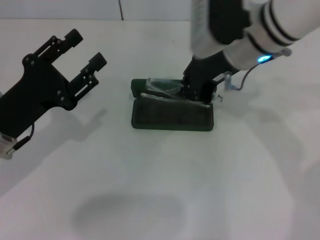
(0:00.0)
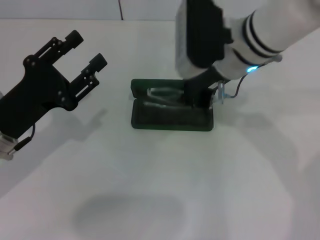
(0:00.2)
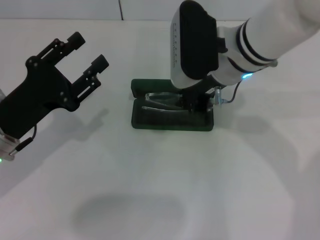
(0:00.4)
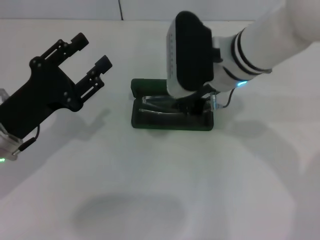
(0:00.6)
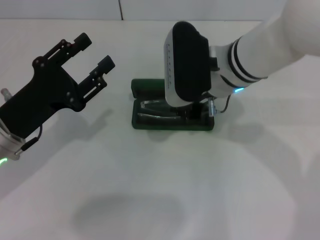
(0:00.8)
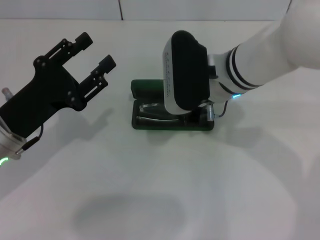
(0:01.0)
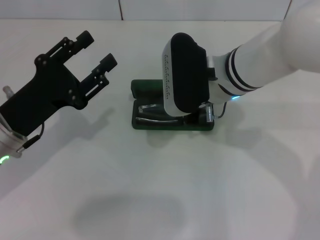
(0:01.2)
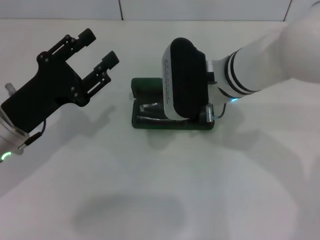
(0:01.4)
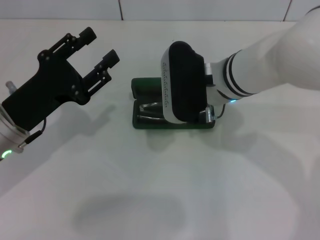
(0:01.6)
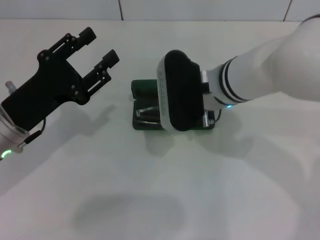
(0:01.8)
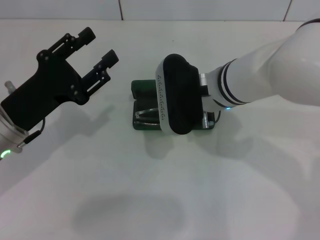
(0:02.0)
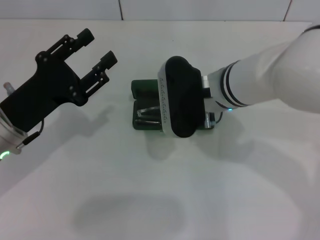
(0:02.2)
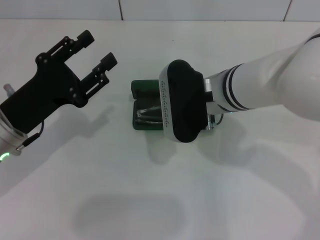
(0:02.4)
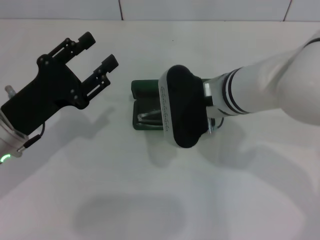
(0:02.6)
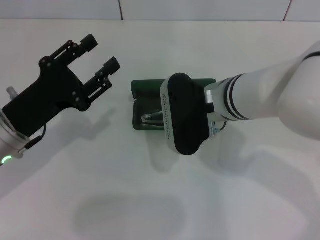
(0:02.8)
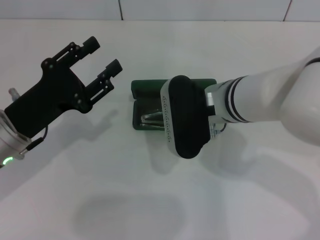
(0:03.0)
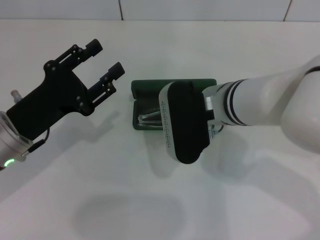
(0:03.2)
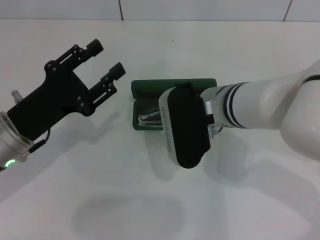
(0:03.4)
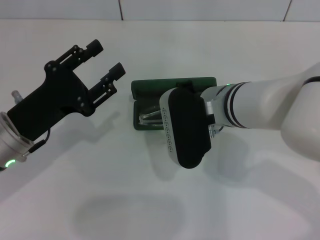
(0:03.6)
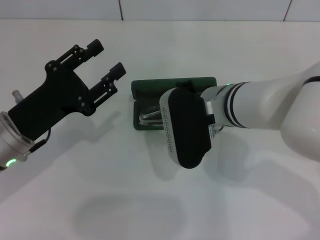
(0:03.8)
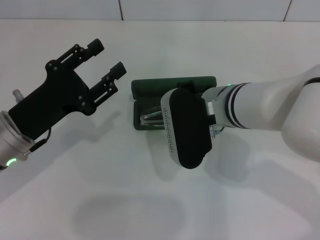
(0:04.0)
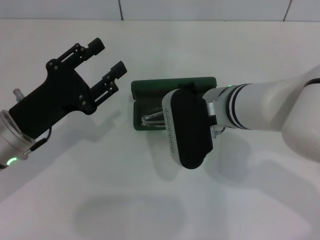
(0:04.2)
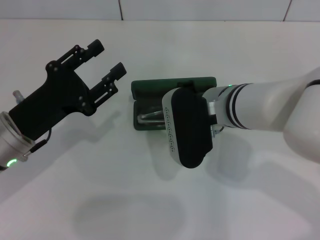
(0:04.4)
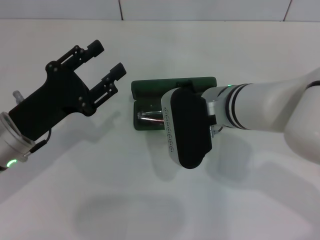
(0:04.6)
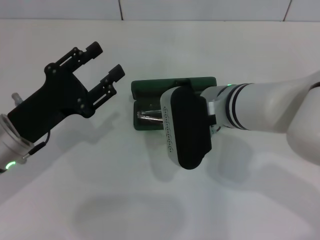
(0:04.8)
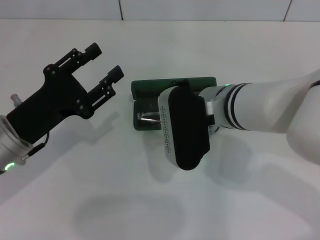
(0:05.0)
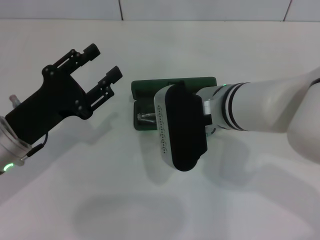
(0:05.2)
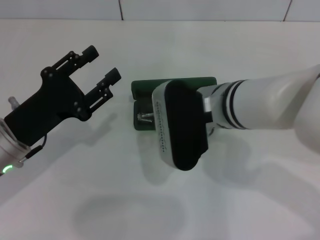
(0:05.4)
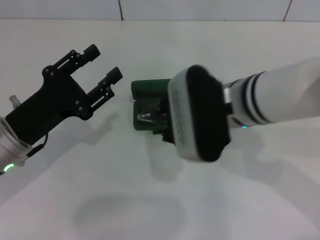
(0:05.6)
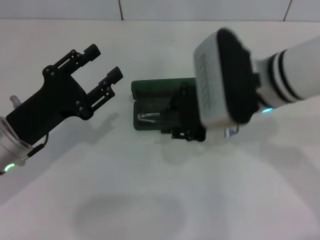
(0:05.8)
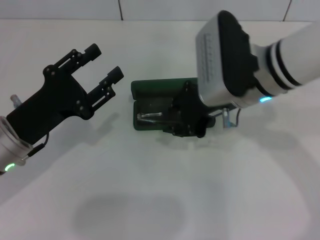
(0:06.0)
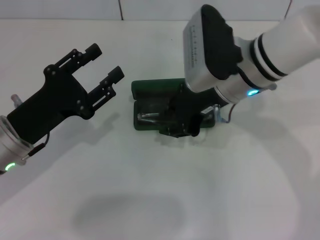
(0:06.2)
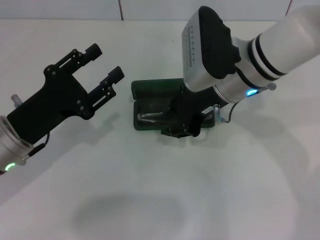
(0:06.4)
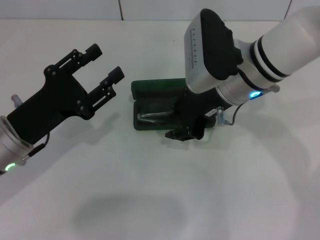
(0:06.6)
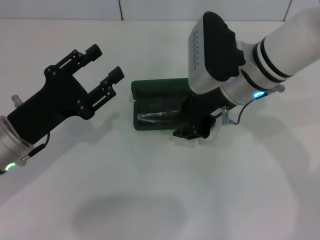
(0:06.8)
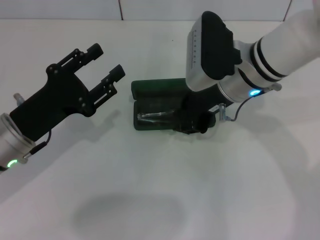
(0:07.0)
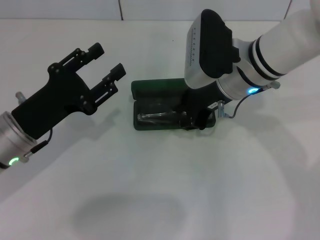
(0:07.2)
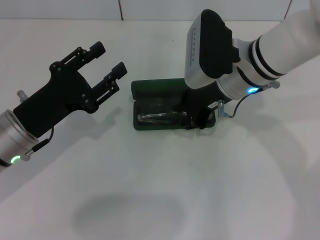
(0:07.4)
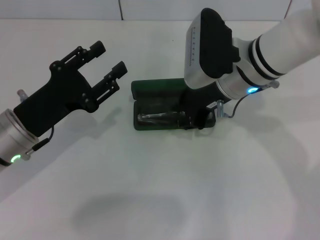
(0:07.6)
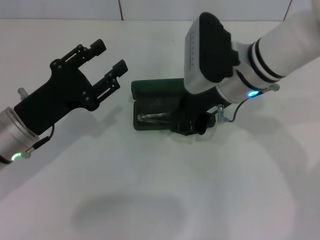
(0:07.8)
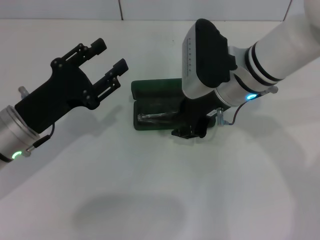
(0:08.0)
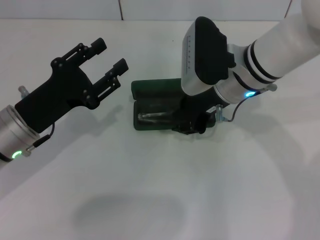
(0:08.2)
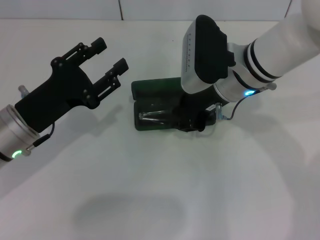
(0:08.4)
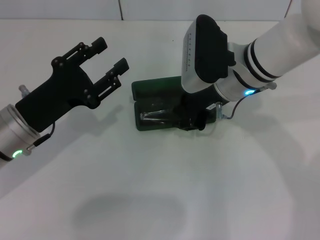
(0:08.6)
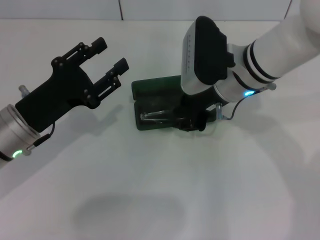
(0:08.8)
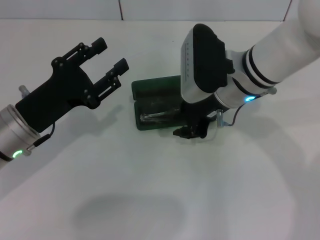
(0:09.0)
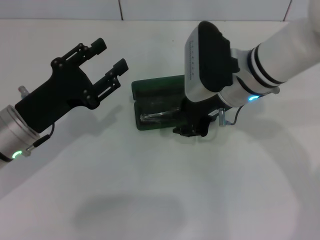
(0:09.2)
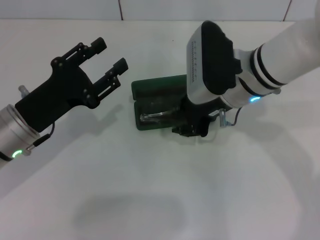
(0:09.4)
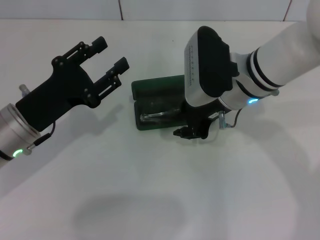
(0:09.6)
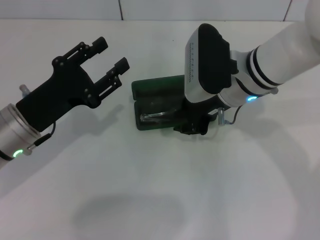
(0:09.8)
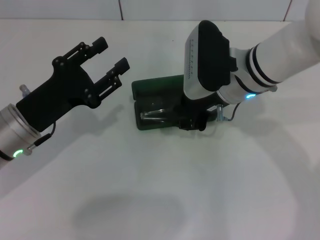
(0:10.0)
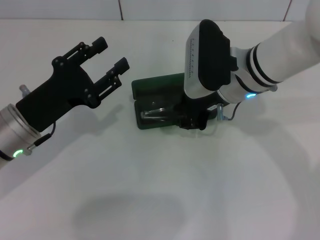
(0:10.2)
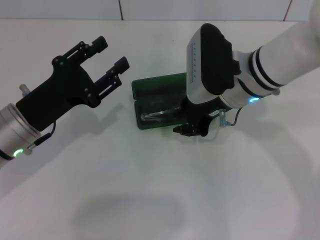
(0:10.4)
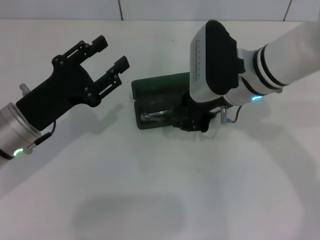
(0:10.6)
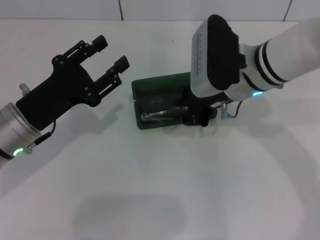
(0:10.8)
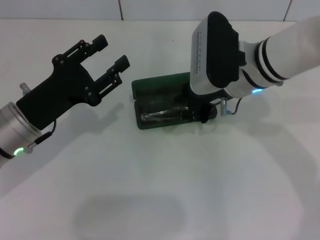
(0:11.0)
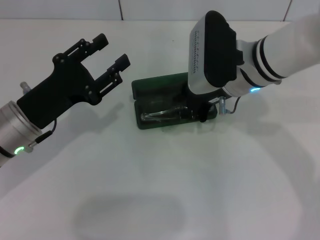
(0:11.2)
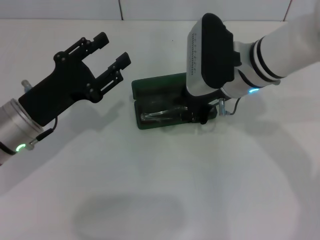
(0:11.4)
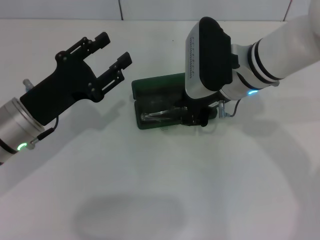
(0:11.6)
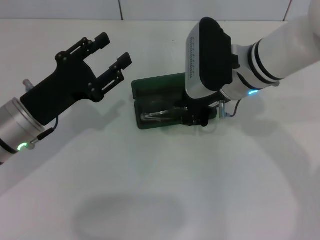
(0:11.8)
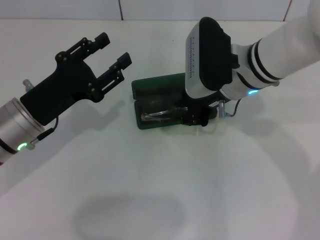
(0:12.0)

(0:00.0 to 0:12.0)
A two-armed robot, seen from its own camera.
Step, 0:00.0 - 0:05.2: Put the glasses into the case with your right hand.
0:00.0 - 0:01.6: The right gripper moves downward, roughly 5 cm.
0:01.6 - 0:04.4: The grippers make only small movements.
0:04.4 - 0:06.0: The right gripper travels upward by about 5 cm.
0:06.0 - 0:07.6: There are only small adjustments of the grippers.
0:07.6 - 0:10.4: Both grippers stay put.
0:10.4 - 0:12.0: The grippers stay close to where they were, moving slightly.

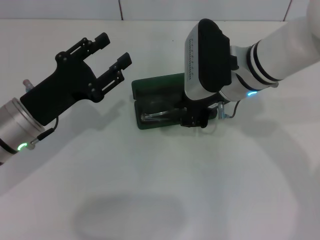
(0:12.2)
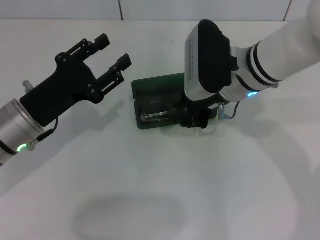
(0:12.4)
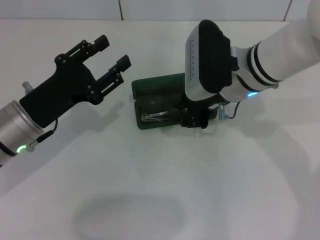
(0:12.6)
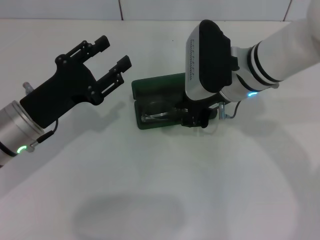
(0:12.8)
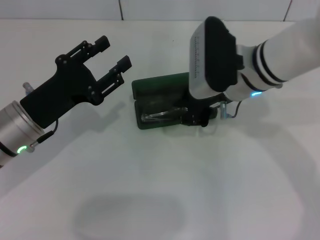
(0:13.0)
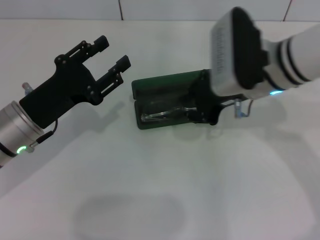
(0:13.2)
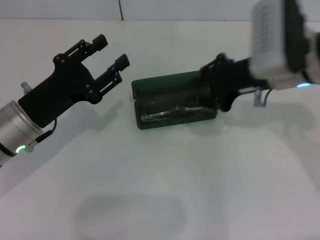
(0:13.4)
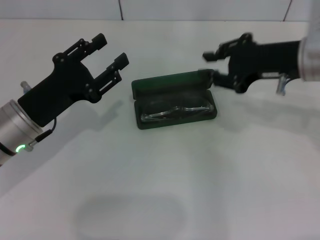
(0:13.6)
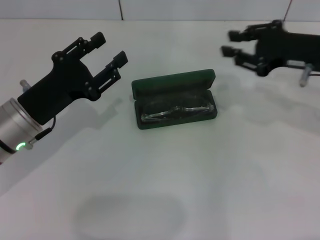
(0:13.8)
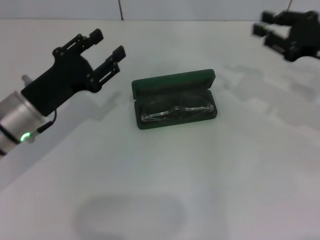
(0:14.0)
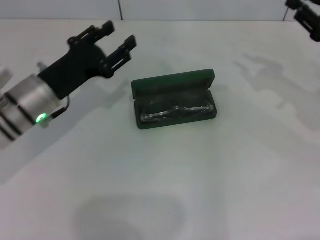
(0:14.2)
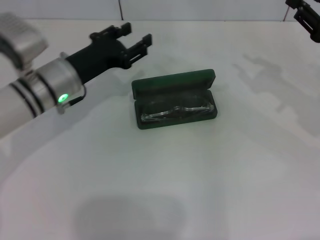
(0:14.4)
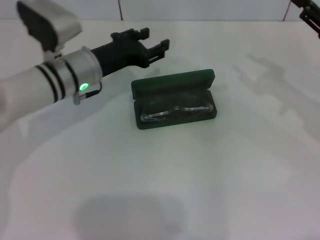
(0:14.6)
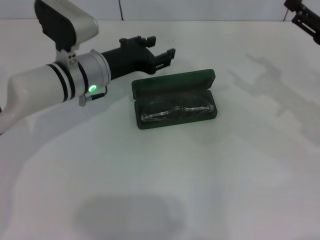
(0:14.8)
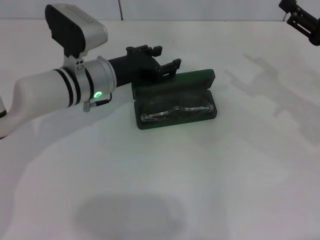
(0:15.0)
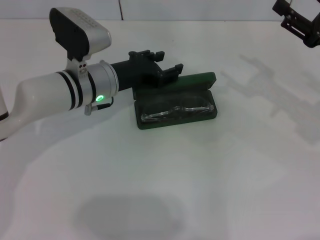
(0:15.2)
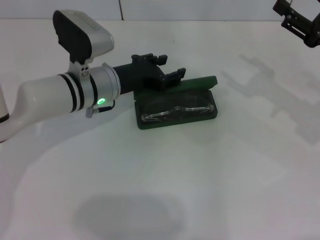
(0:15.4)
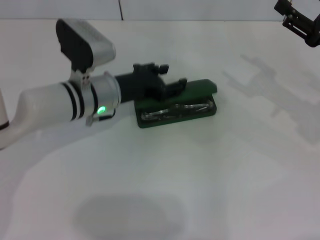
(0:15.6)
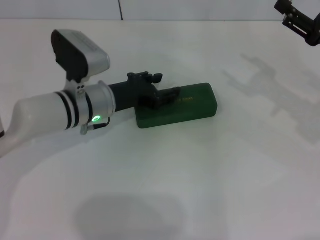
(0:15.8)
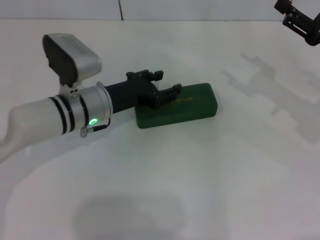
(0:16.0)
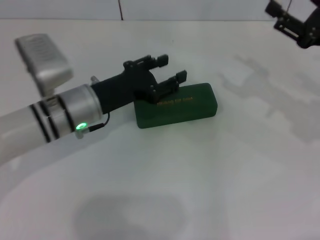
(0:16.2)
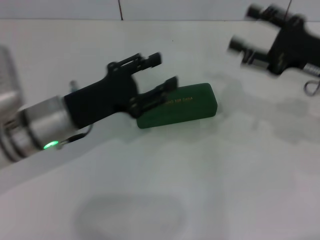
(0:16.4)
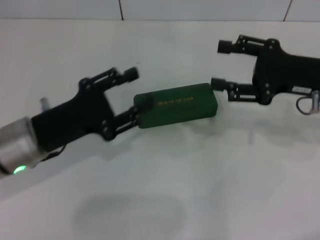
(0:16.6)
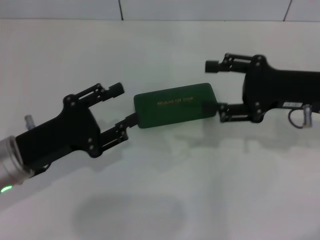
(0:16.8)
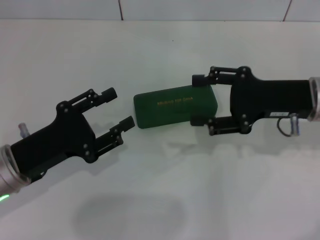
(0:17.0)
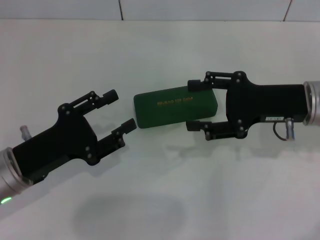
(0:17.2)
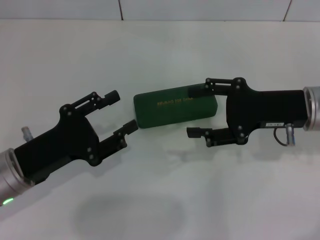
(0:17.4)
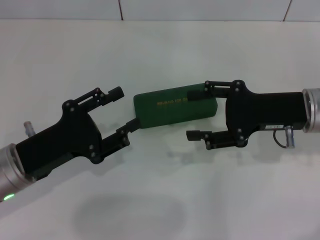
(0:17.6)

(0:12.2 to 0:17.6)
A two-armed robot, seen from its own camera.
Step, 0:12.2 - 0:15.8: Close the glasses case with your left hand.
0:12.2 - 0:13.6: The right gripper is displaced to the right by approximately 10 cm.
0:13.6 - 0:15.0: The right gripper travels to the right and downward by about 10 cm, and opens up, while the left gripper heads forward and to the right, covering approximately 15 cm.
0:15.0 - 0:16.2: The left gripper goes some 5 cm backward.
0:16.2 - 0:17.6: The left gripper shifts about 10 cm backward and to the left; the right gripper travels to the left by approximately 5 cm.

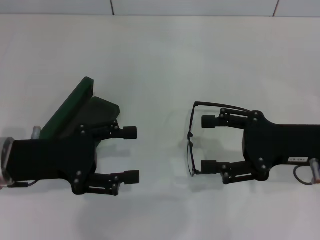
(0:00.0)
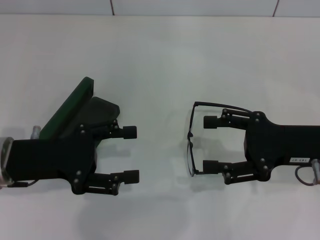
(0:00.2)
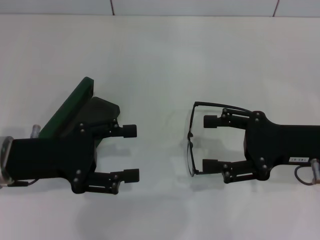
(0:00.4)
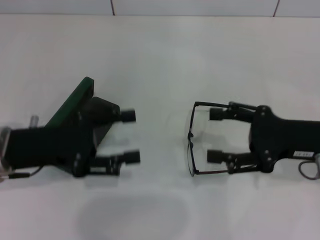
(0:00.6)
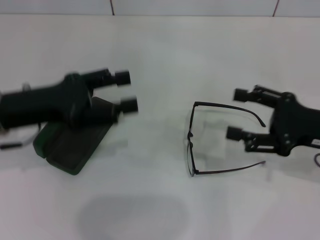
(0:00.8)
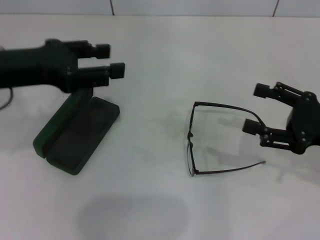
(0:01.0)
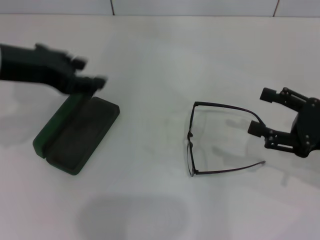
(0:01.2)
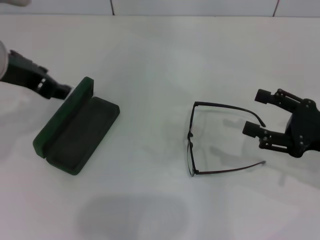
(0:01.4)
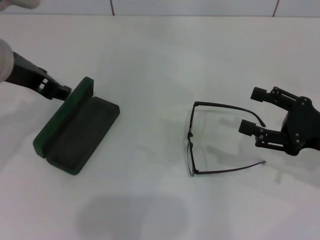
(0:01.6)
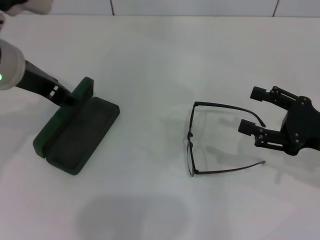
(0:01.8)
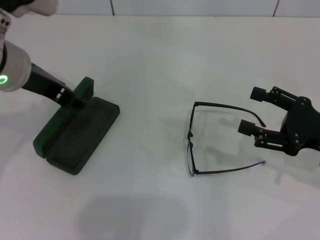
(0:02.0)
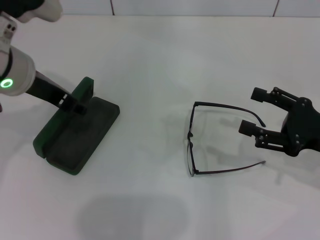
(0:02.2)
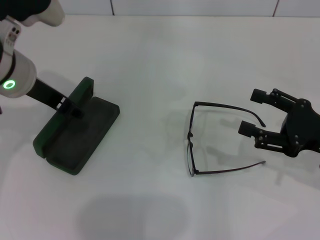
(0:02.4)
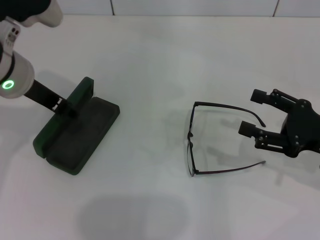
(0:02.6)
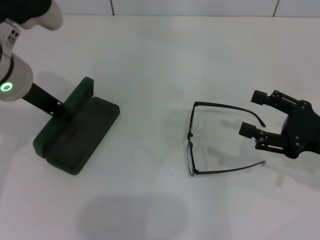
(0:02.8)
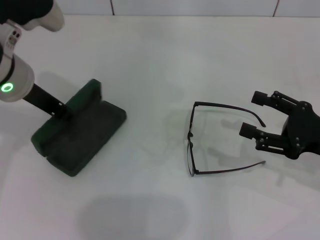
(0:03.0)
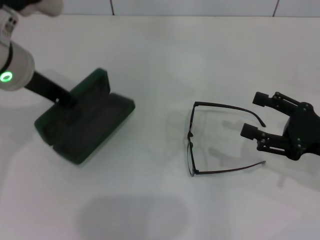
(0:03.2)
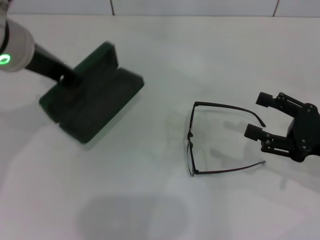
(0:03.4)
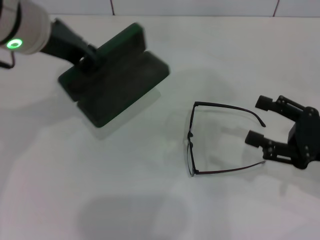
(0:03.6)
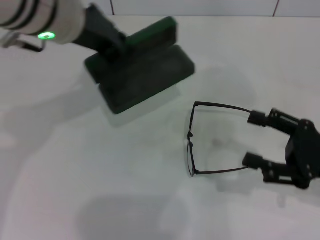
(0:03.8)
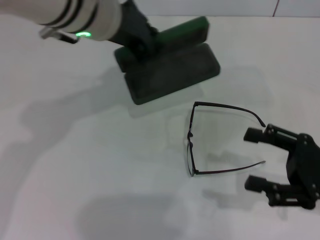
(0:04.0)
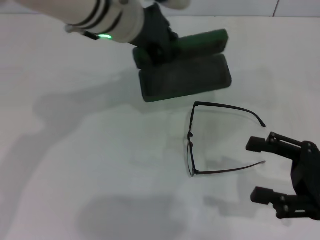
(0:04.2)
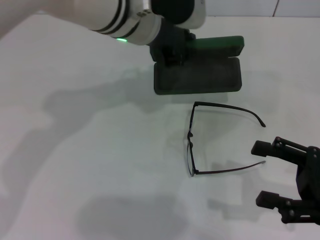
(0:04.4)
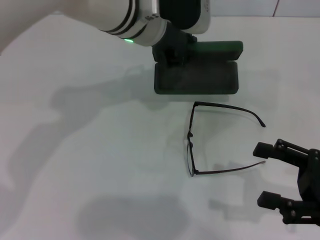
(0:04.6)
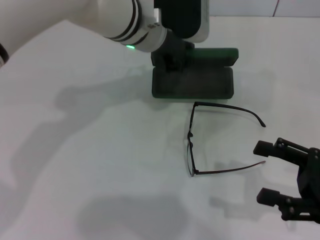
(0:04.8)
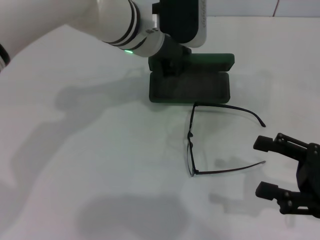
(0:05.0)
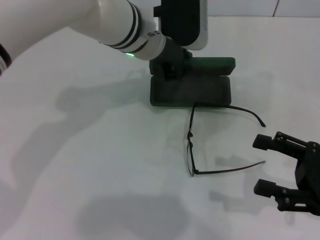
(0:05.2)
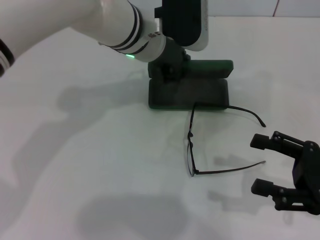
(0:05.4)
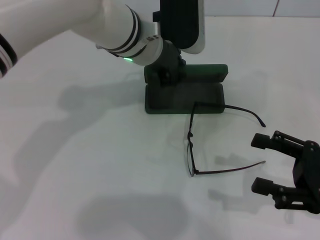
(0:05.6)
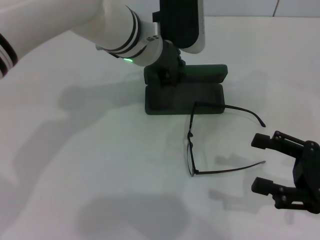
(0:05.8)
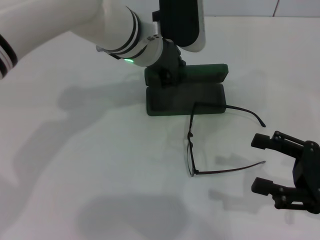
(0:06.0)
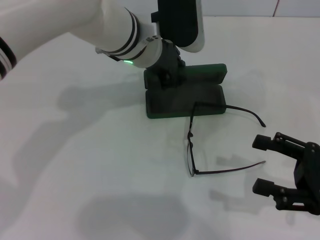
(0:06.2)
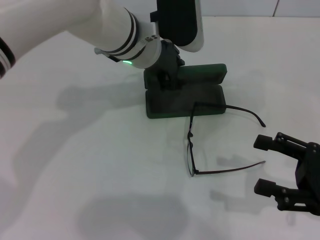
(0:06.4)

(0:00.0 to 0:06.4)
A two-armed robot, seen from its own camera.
Step, 0:00.0 - 0:02.6: Grab the glasses case with your left hand.
0:00.0 - 0:01.6: The right gripper is displaced to the right by roughly 5 cm. Meanwhile the left gripper is displaced upward and forward by approximately 15 cm.
0:01.6 - 0:03.2: The left gripper closes its fingers.
0:03.2 - 0:04.8: The right gripper heads backward, covering some 5 cm, while the left gripper moves to the right and forward, about 15 cm.
0:04.8 - 0:06.4: There are only small adjustments of the grippers.
